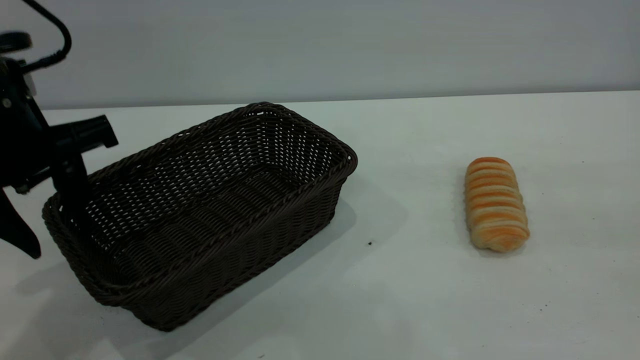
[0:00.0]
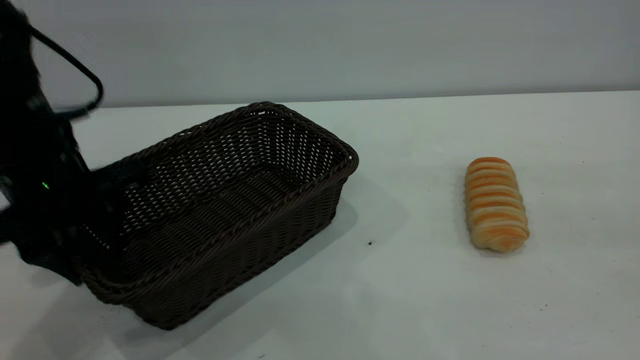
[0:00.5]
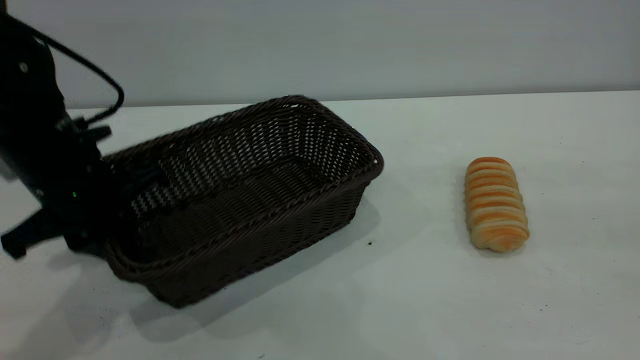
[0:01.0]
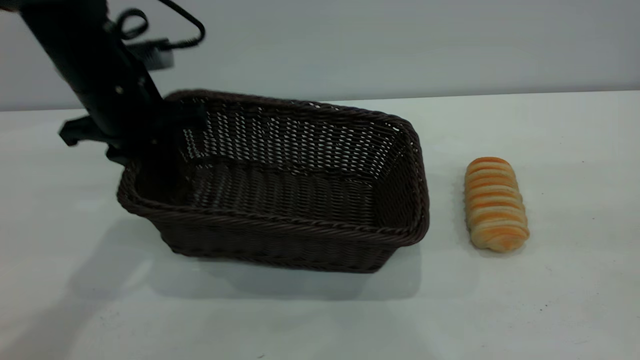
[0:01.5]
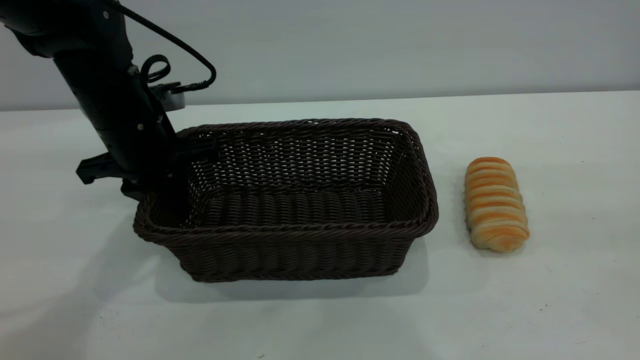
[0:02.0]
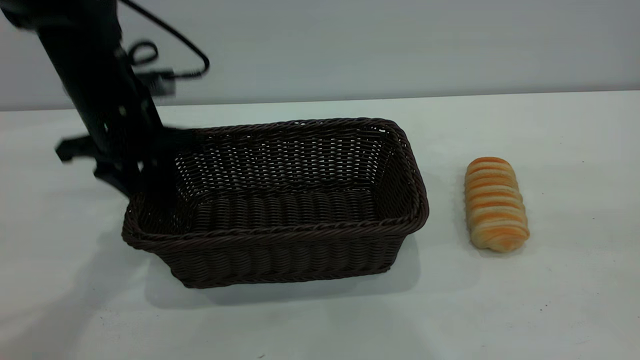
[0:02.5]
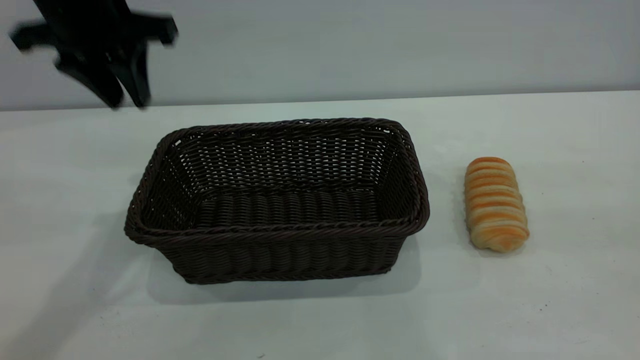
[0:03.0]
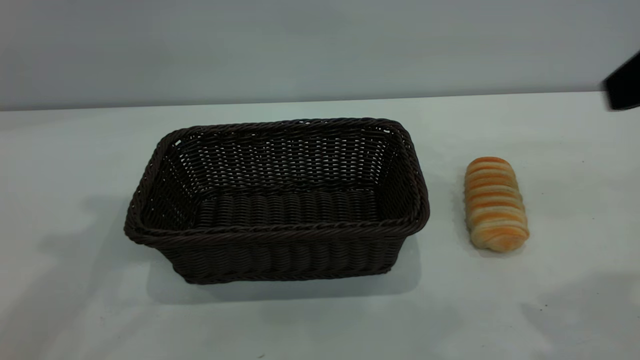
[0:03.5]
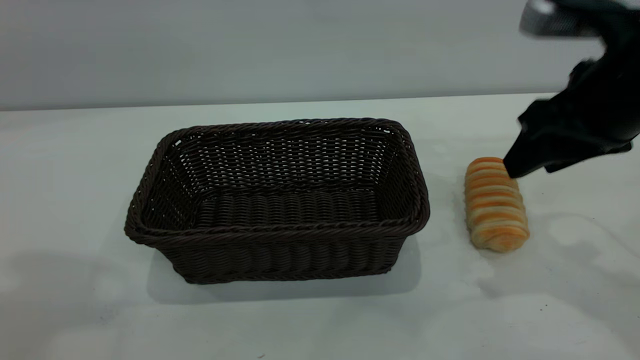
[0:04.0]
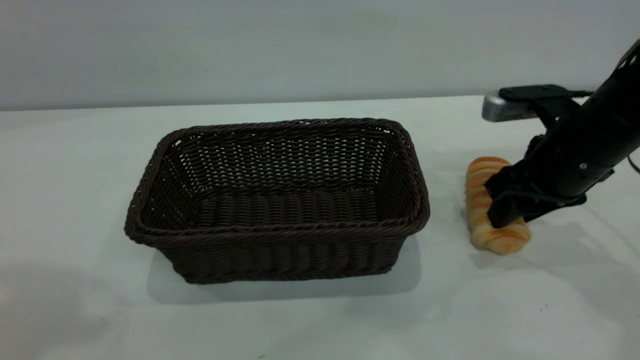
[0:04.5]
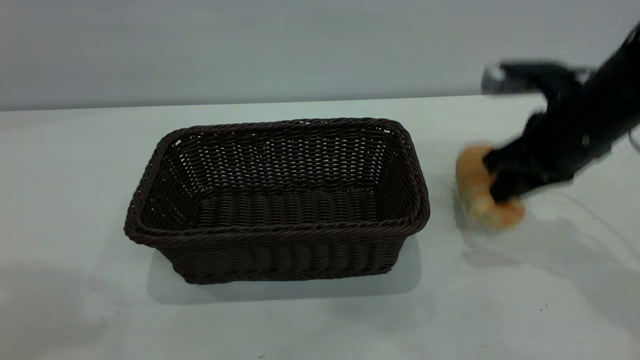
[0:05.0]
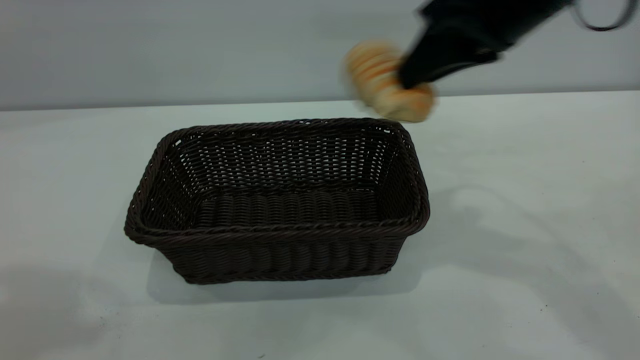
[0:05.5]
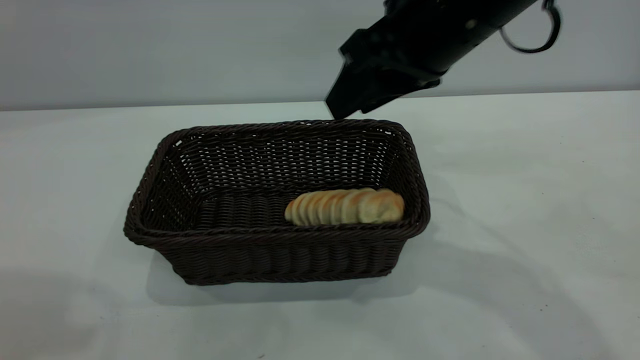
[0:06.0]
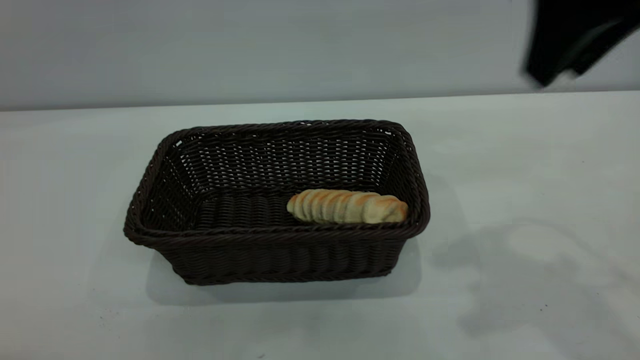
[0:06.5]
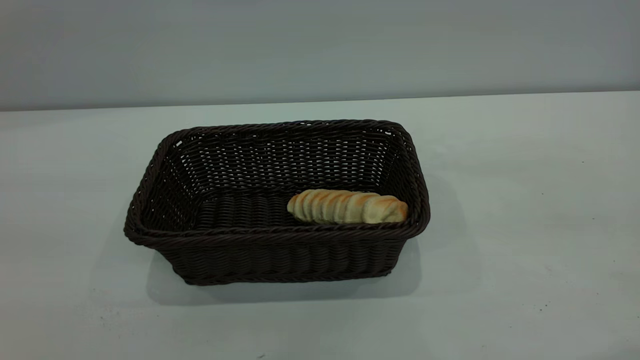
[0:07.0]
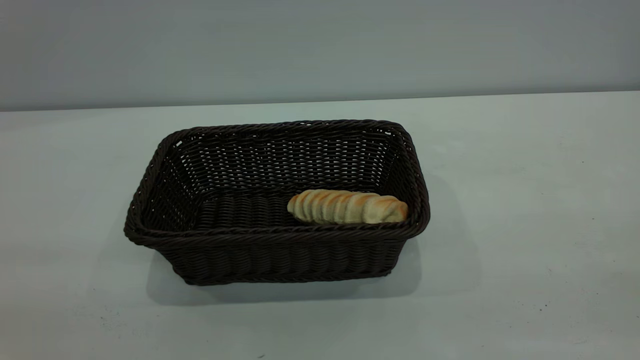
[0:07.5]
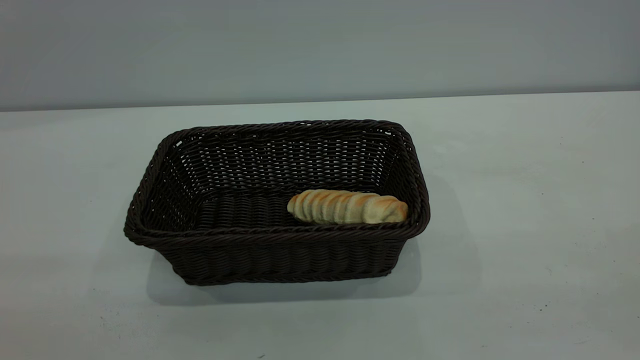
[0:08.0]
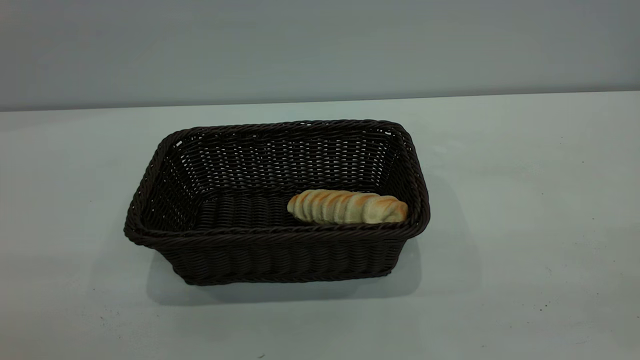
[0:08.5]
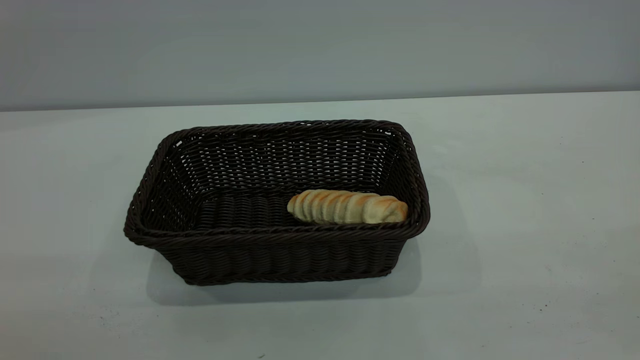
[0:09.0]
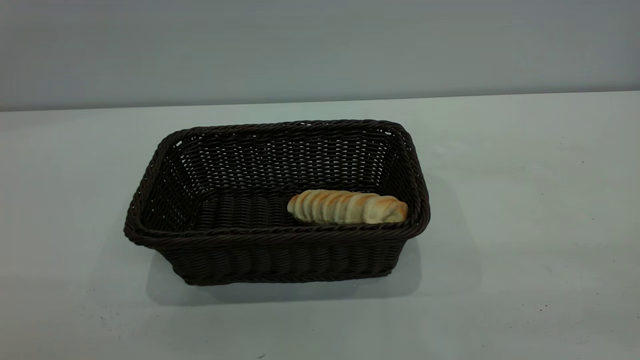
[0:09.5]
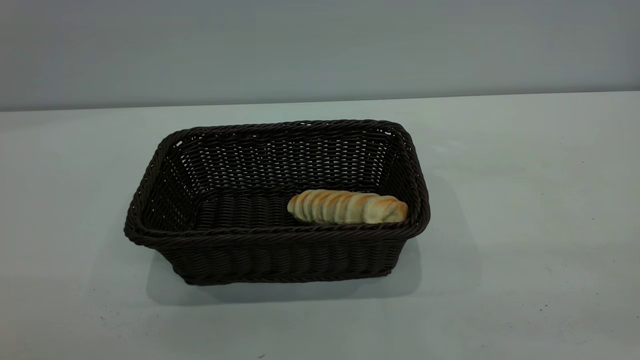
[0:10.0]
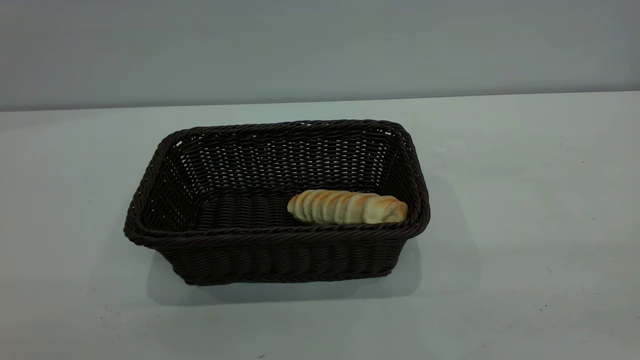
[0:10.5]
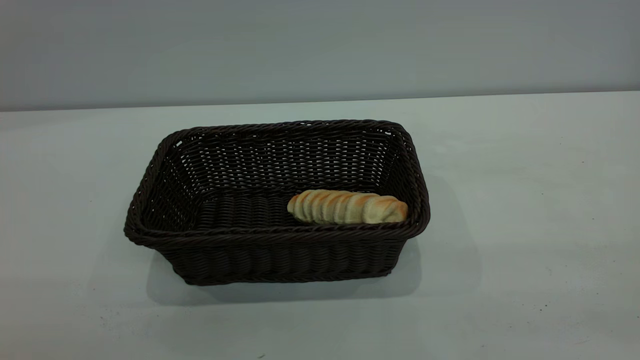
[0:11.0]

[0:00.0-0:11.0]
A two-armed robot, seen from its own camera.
Task of the whole recording: One hand grasps the black basket and places it in the middle of the table, while the other hand picks up the long bread and puts it into the black basket.
Step, 0:00.0 to 0:02.5: Move the basket to the center of view.
Step, 0:05.5 to 0:06.0: place the bread into the basket.
0:00.0 to 0:02.0: The left gripper shifts approximately 15 cm forward and downward, and closes.
0:02.0 to 0:03.5: The right gripper is displaced forward and downward by about 15 cm. The left gripper goes about 30 cm upward.
0:03.5 to 0:05.5: The left gripper is displaced backward and upward by about 10 cm; the right gripper travels to the left and forward by roughly 15 cm, goes downward and returns, approximately 20 cm each way, and closes its fingers.
0:05.5 to 0:07.5: The right gripper goes approximately 35 cm backward and to the right, and opens. Meanwhile the left gripper goes roughly 25 cm backward and downward.
